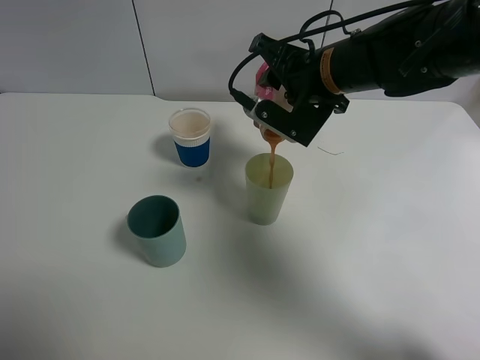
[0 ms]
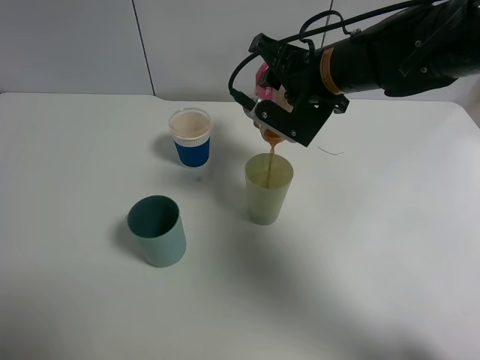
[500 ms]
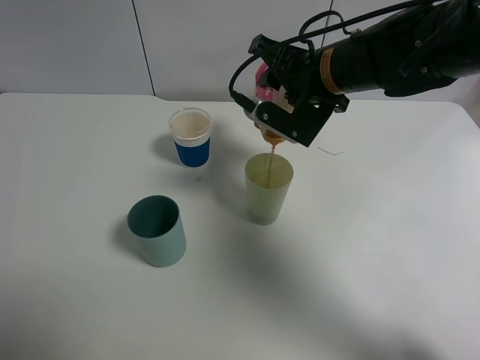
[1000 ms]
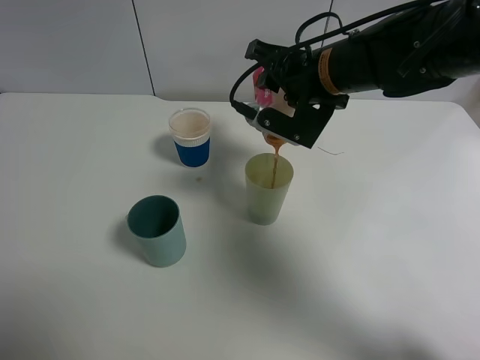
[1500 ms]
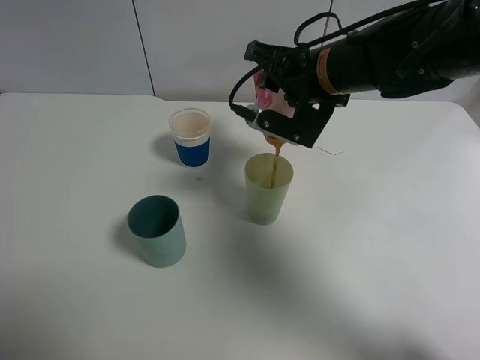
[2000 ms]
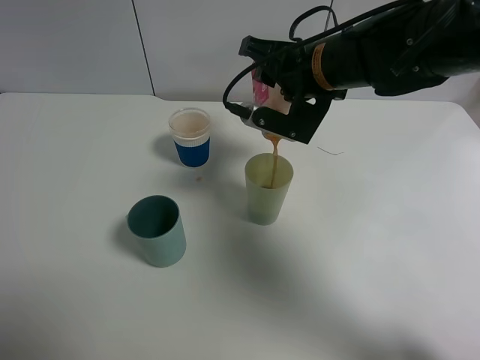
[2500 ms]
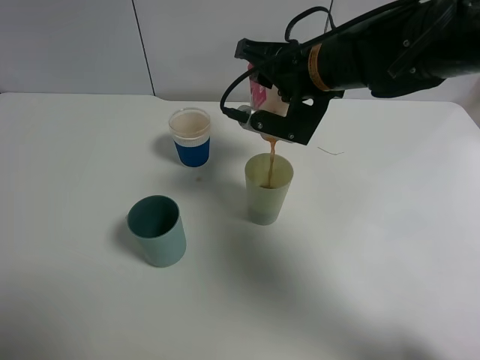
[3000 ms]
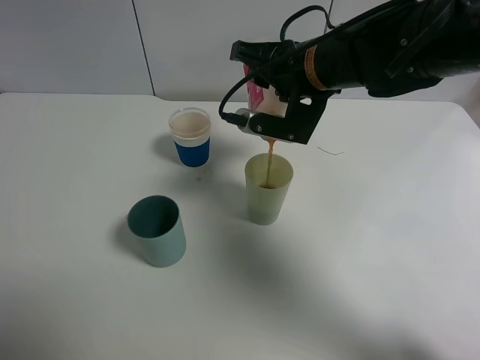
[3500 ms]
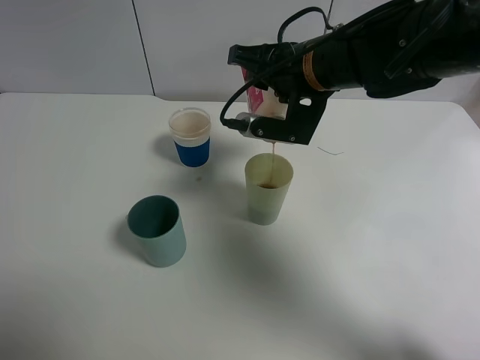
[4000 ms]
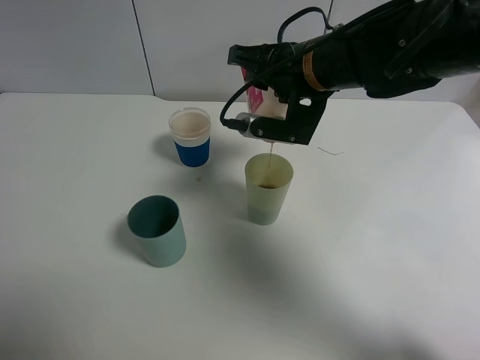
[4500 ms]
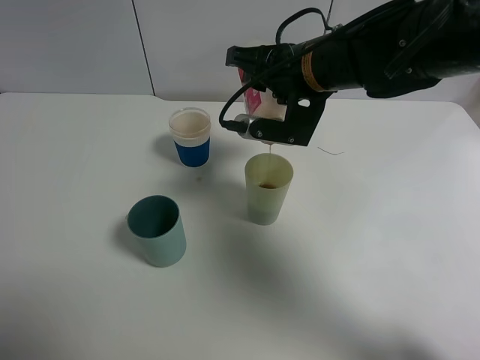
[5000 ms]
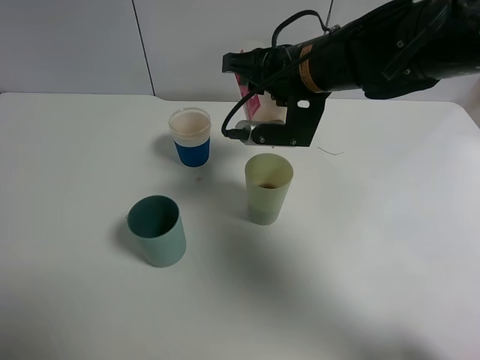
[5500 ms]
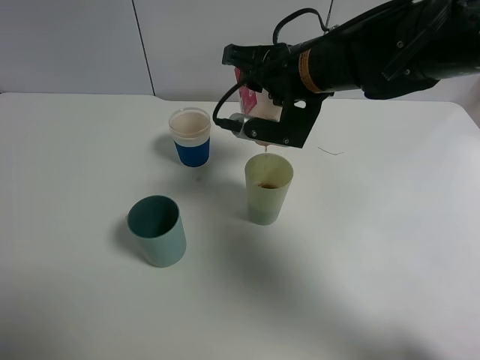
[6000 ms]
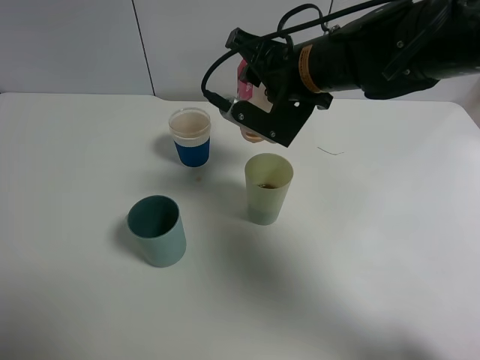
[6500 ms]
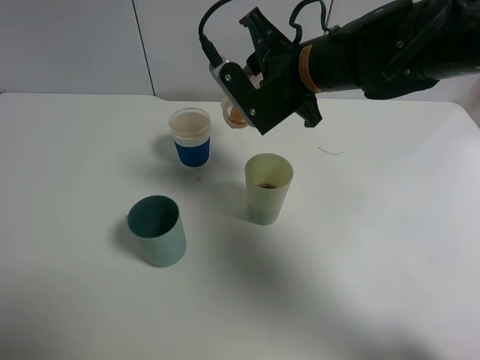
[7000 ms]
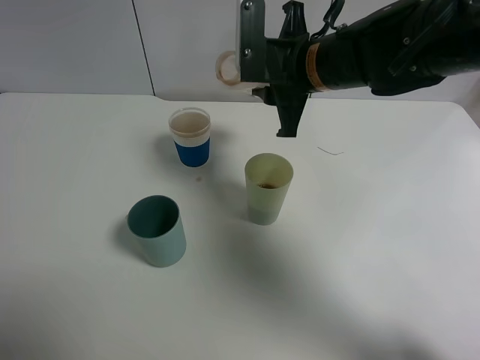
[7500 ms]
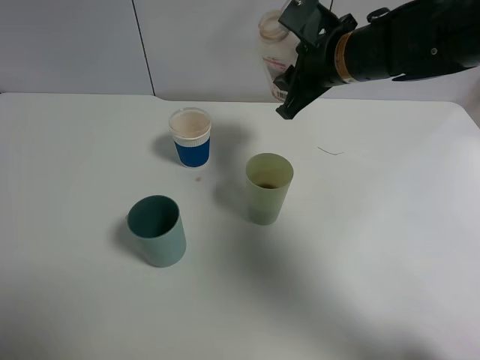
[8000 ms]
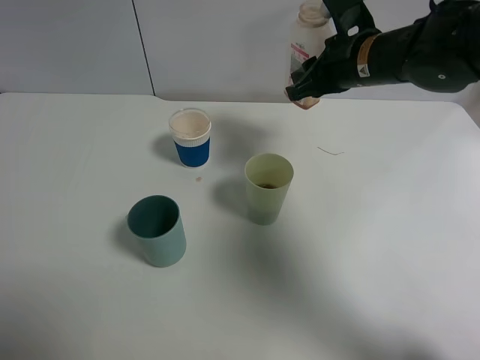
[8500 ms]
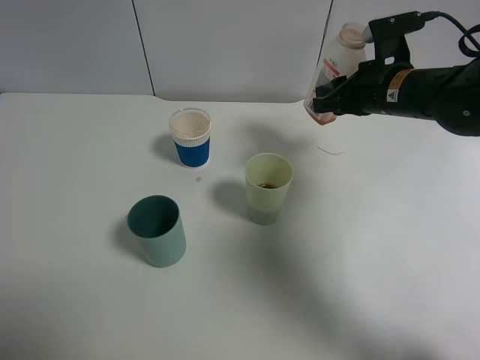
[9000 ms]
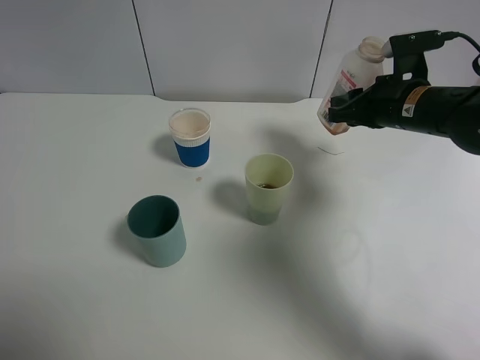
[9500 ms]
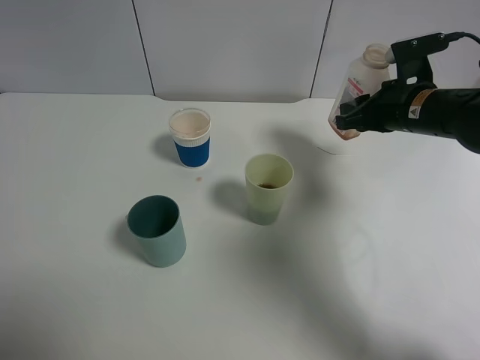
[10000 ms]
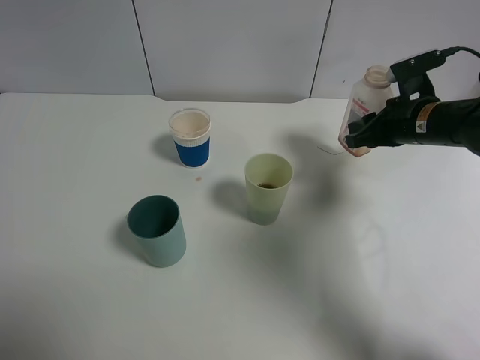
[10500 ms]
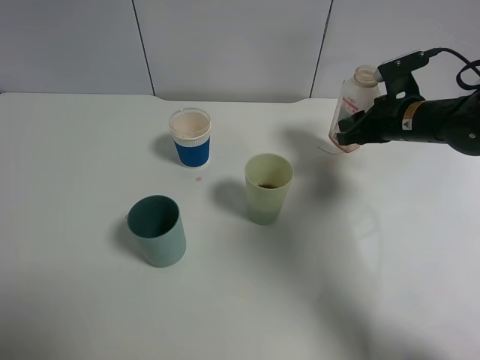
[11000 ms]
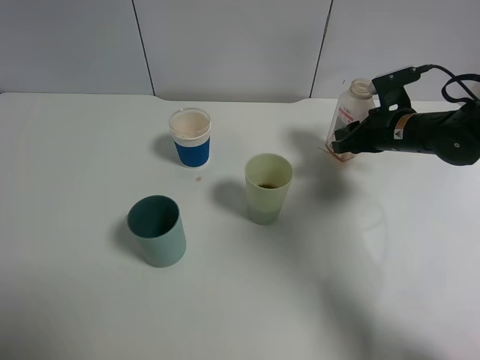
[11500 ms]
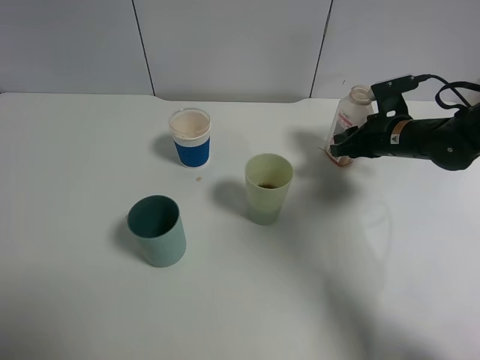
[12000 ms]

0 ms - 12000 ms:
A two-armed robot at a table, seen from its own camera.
Task of the whole recording: use a gripper to hold the bottle of the drink and pour it into a random cup.
Step, 0 ms - 6000 ms: Pour the cranberry juice into the White Plastic Cup with the right gripper.
0 ms - 4000 ms: The grippers move only a little.
4000 ms - 6000 ms: The grippers move only a little.
6000 ms - 8000 ms: The right gripper shifts by approximately 5 cm.
8000 ms - 10000 ms: The right gripper is displaced to the right and downward by approximately 15 cm.
10000 ms - 12000 ms: The right gripper shifts some 5 cm downward.

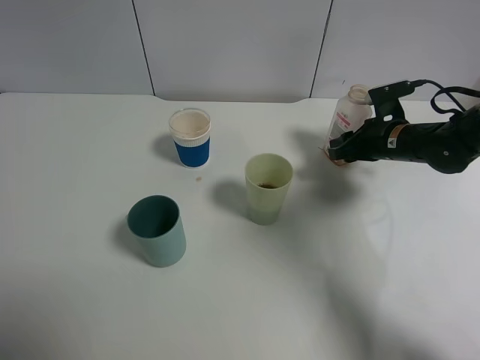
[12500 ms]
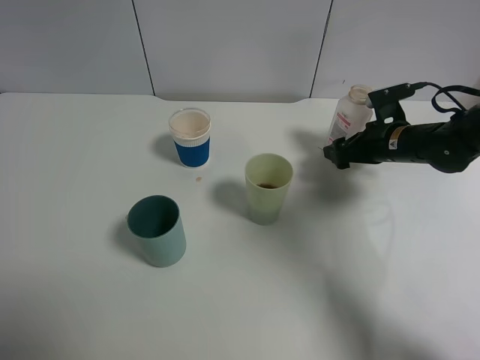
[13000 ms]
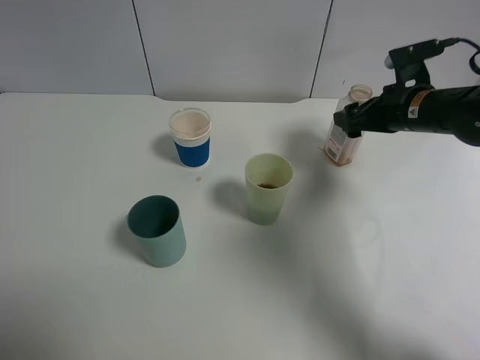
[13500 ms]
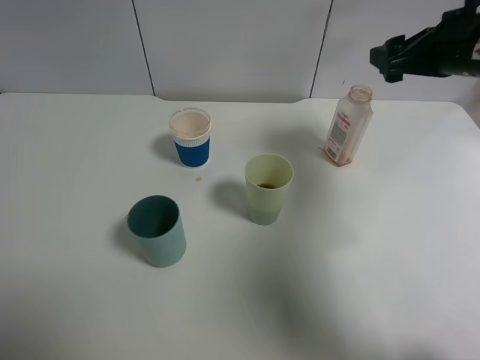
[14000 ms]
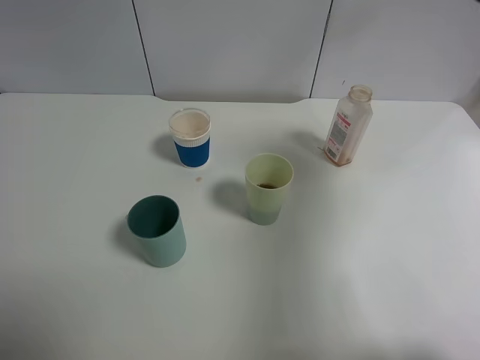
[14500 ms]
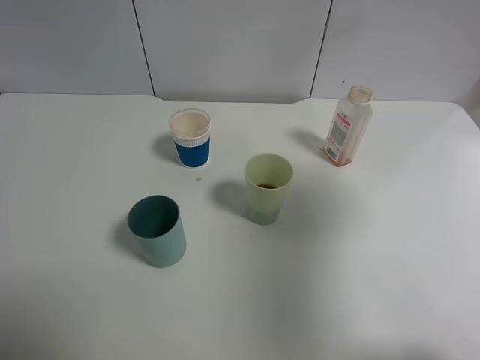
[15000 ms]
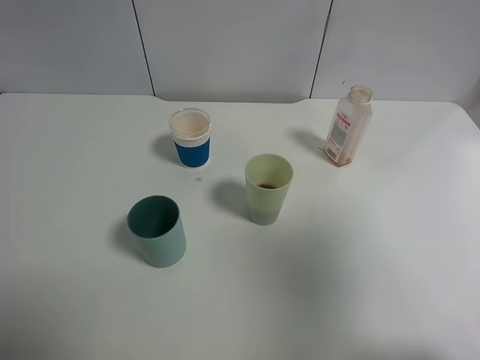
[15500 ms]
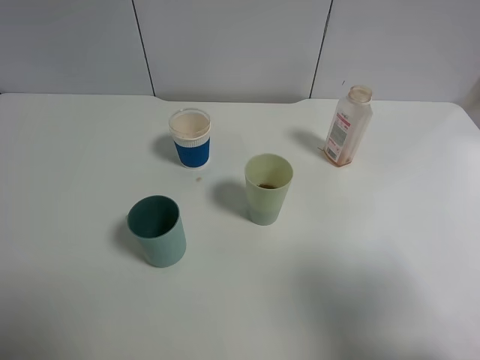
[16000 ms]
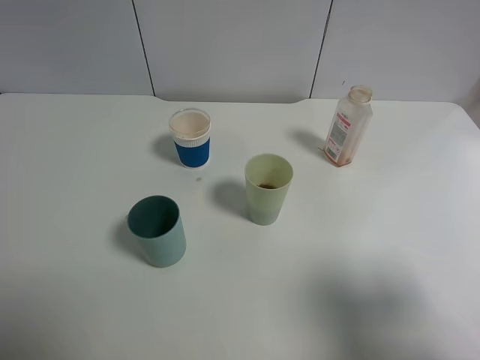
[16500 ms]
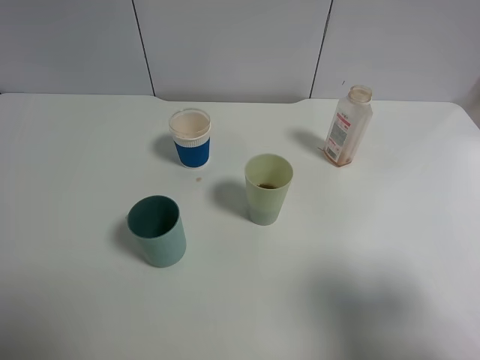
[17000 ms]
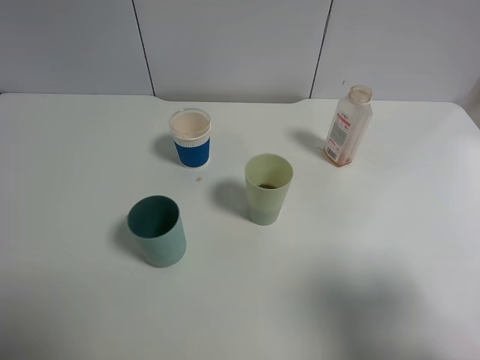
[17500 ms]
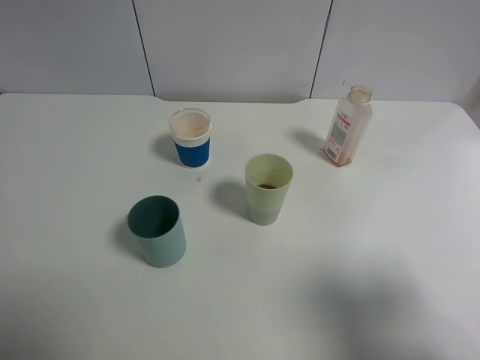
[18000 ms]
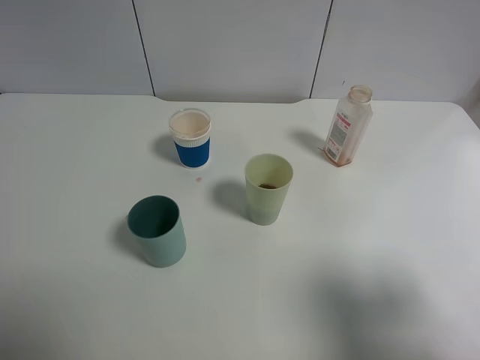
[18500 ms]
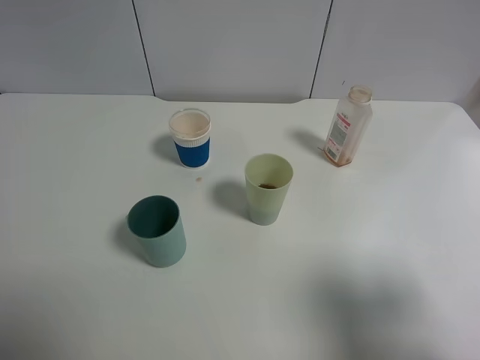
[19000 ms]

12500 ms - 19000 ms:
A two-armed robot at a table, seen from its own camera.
Task of the whole recording: use a gripper to hold the bottle of the drink and pour it into a random cup.
12500 ms - 14500 ms: The right gripper moves upward and backward, approximately 30 cm, and opens up.
14500 ms - 17000 ms: The right gripper goes roughly 20 cm backward.
